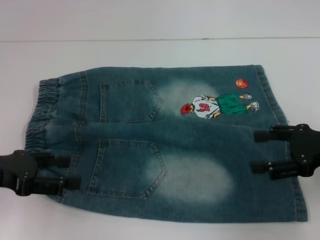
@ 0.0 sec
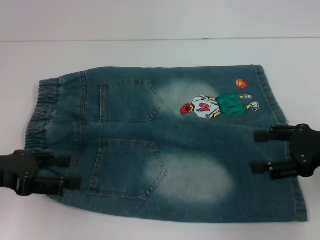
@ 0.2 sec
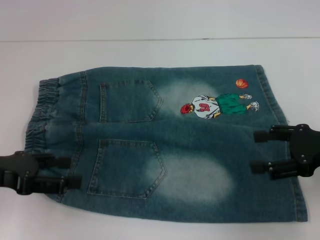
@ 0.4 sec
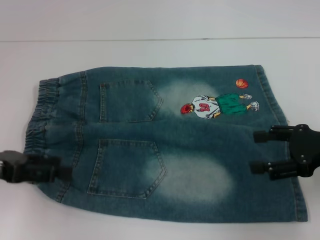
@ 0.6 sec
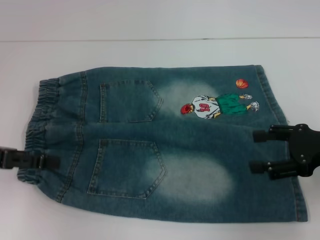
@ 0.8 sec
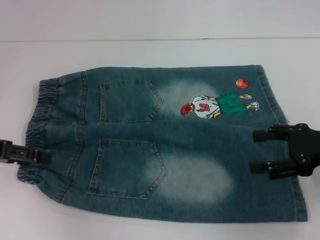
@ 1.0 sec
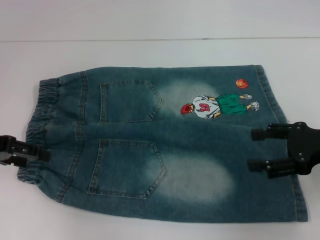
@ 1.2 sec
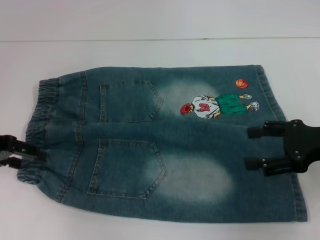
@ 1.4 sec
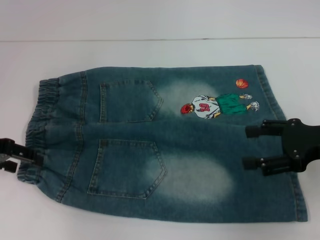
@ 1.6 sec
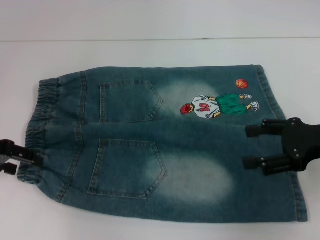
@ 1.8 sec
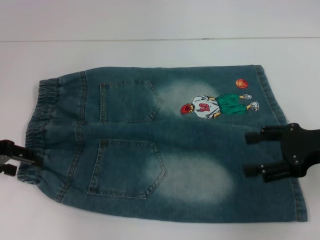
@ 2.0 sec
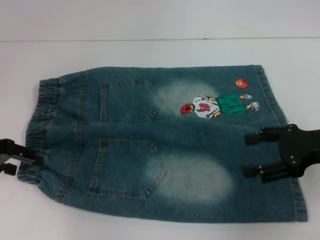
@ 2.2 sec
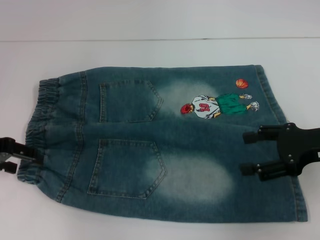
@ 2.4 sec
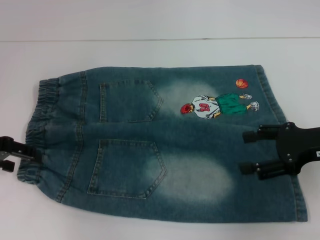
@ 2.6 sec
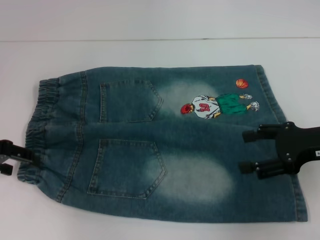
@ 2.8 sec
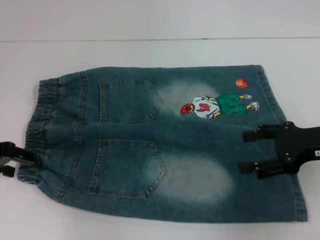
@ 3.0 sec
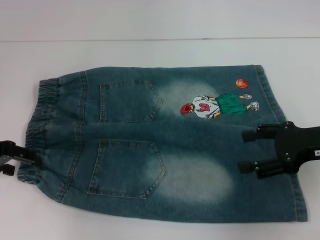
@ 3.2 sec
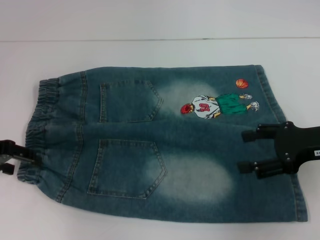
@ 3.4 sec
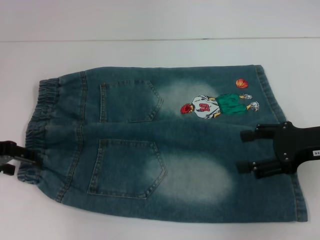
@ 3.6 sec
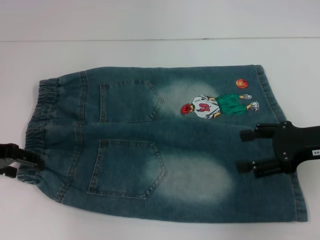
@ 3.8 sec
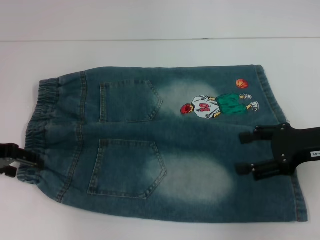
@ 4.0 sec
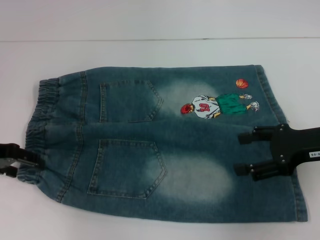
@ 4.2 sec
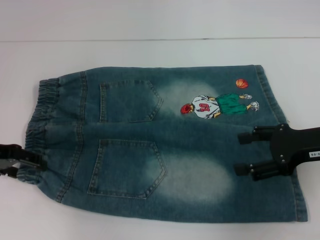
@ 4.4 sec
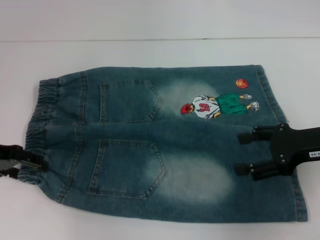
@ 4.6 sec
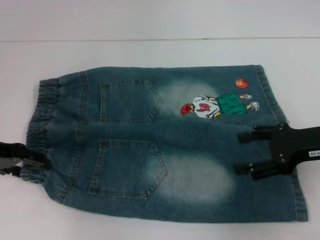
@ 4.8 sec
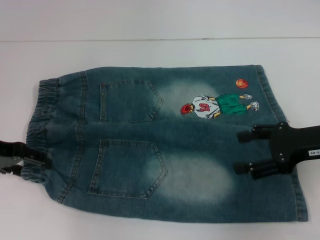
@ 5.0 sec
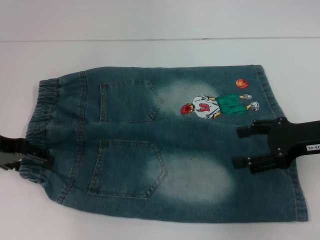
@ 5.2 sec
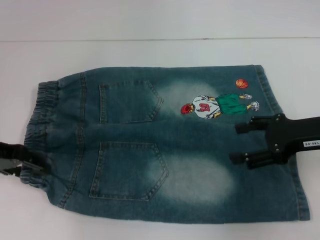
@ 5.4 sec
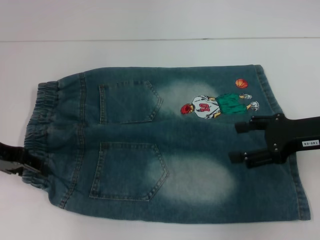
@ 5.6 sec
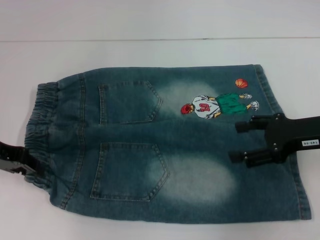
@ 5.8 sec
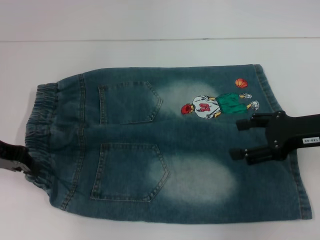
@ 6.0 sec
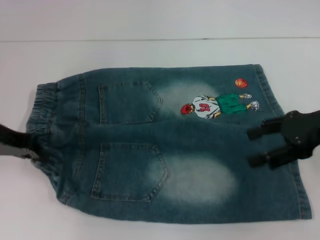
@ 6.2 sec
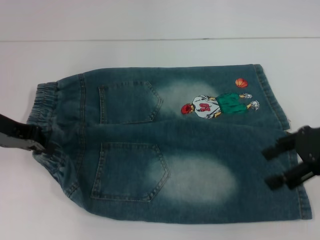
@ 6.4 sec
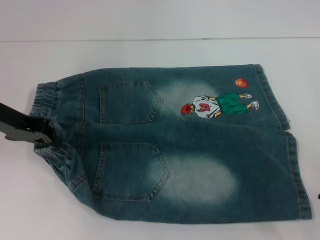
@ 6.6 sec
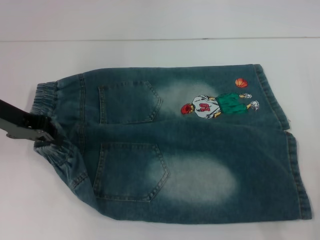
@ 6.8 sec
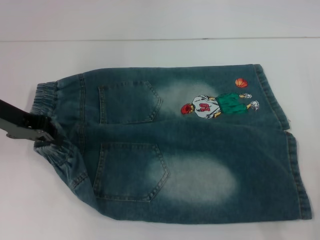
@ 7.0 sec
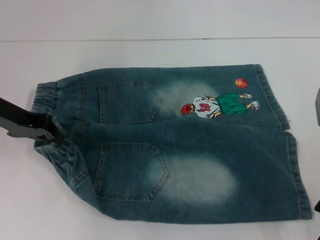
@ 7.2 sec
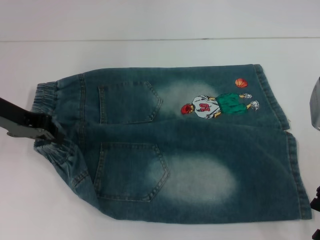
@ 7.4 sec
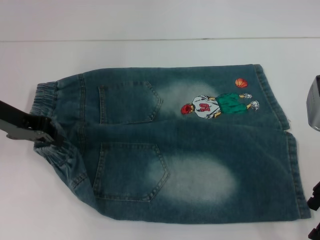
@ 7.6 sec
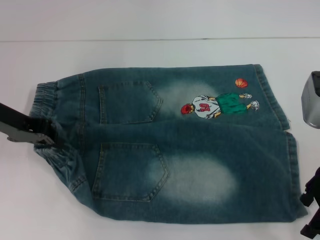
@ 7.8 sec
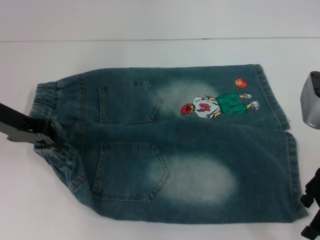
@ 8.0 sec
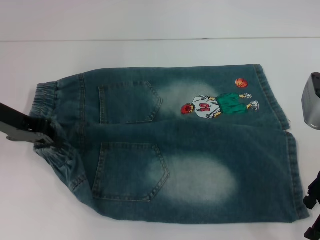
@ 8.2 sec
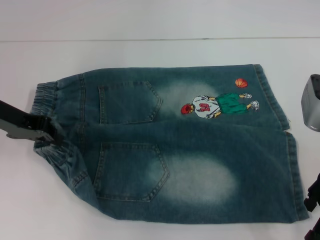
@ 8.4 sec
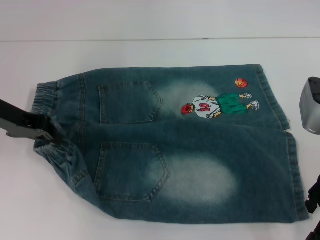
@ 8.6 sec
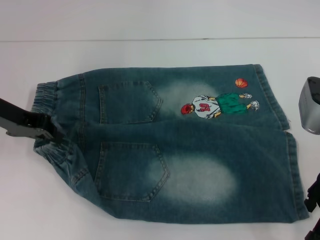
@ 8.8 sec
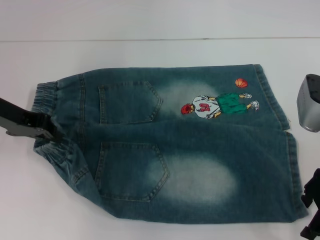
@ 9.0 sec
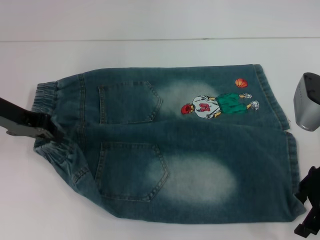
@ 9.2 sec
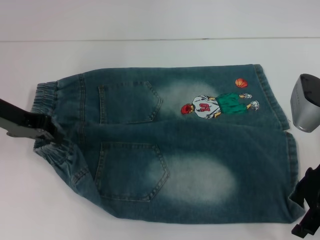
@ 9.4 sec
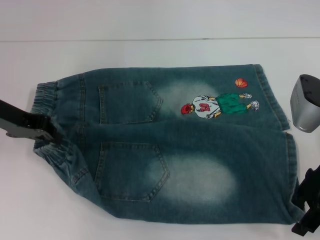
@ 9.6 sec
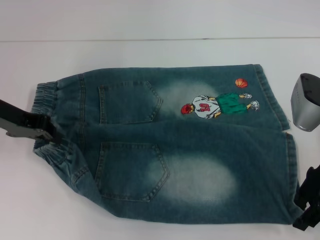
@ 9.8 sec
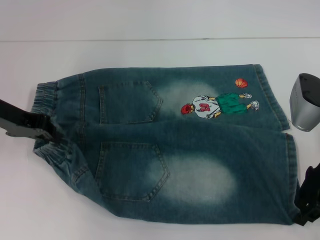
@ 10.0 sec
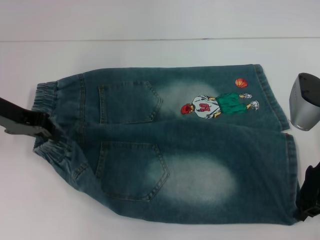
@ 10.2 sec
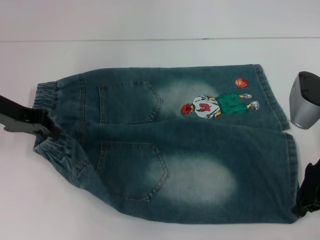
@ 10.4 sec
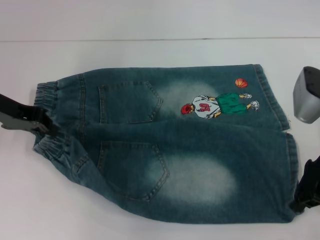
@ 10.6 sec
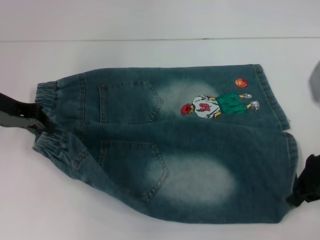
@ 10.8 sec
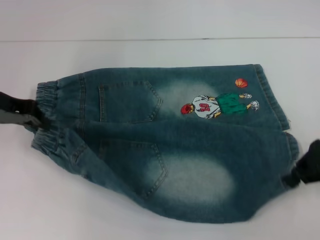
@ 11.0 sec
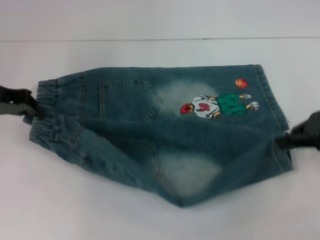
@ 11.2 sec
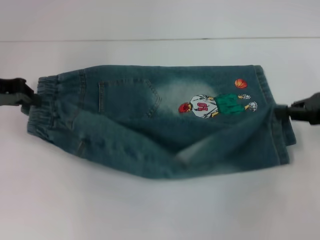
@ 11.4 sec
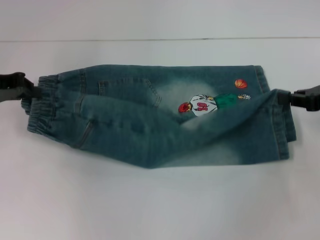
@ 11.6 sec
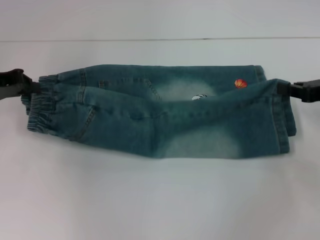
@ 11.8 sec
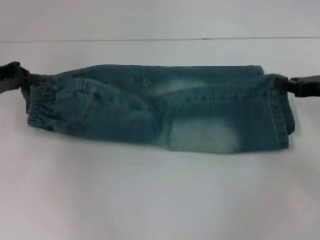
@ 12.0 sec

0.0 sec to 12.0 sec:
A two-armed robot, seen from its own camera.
Step, 0.0 sec to 5.2 sec: Hold the lower left waistband with your left hand.
Step, 5.4 sec to 10.0 sec: Grab the lower right pant leg with your right hand.
0.0 sec to 1.6 sec: The left gripper travels forward by roughly 5 cm.
1.6 sec to 3.0 sec: The grippers move only a little.
3.0 sec to 4.4 sec: Both grippers stay put.
4.4 sec to 6.0 sec: The left gripper closes up.
7.6 sec to 9.0 sec: Both grippers stay about where they are.
9.0 sec to 10.4 sec: The right gripper closes up.
10.4 sec to 12.0 sec: The right gripper is displaced to the right by roughly 10 cm.

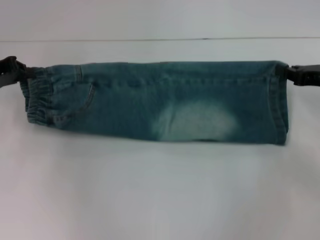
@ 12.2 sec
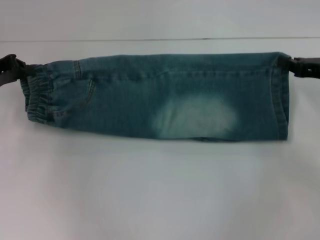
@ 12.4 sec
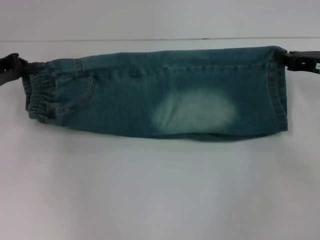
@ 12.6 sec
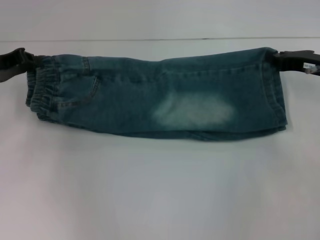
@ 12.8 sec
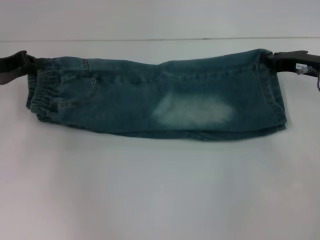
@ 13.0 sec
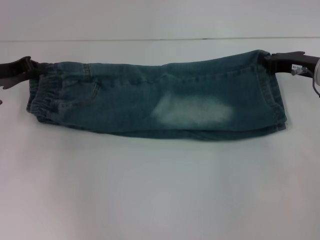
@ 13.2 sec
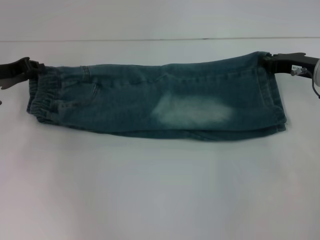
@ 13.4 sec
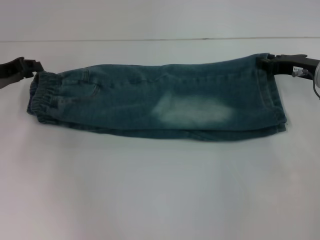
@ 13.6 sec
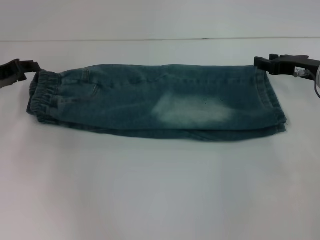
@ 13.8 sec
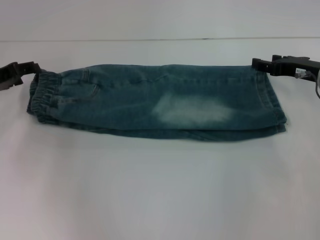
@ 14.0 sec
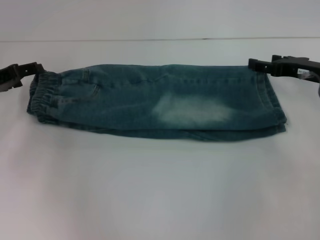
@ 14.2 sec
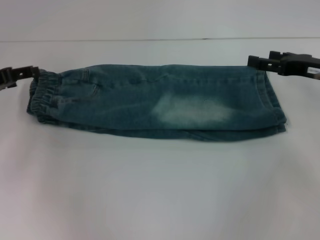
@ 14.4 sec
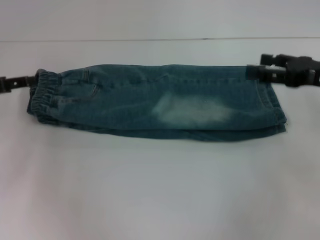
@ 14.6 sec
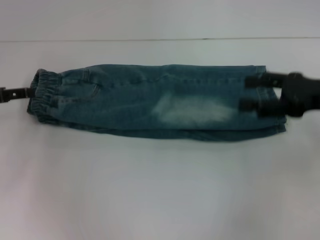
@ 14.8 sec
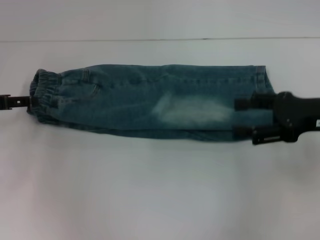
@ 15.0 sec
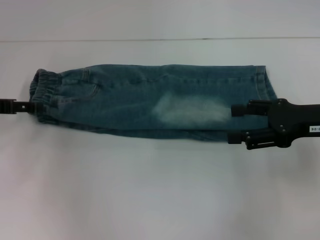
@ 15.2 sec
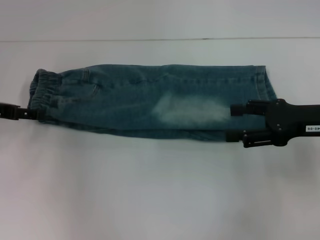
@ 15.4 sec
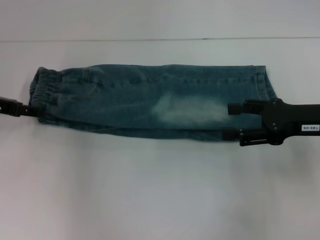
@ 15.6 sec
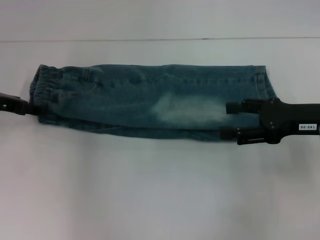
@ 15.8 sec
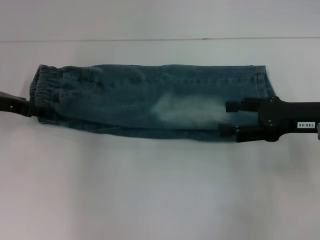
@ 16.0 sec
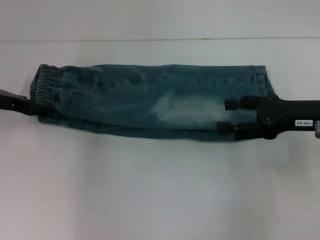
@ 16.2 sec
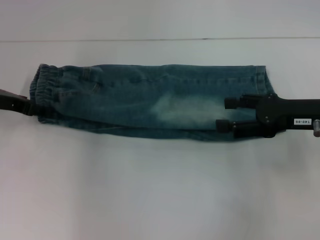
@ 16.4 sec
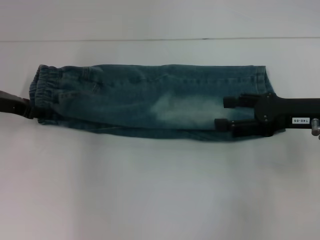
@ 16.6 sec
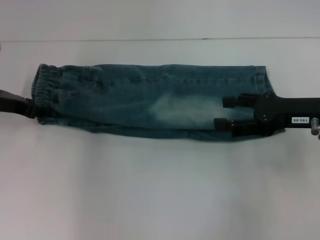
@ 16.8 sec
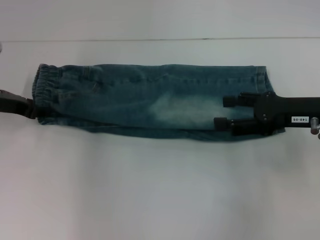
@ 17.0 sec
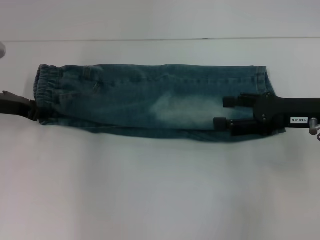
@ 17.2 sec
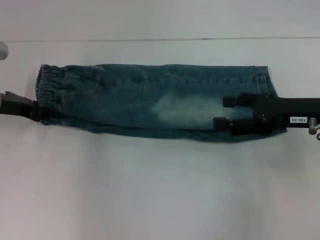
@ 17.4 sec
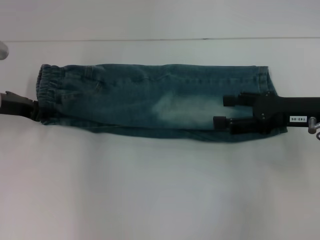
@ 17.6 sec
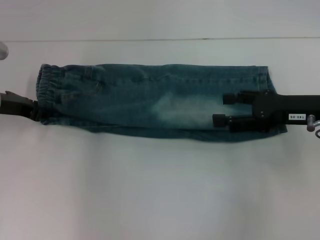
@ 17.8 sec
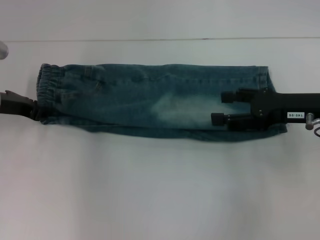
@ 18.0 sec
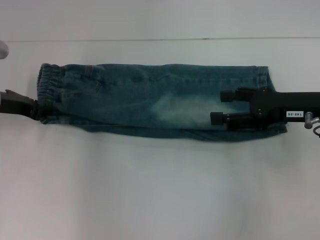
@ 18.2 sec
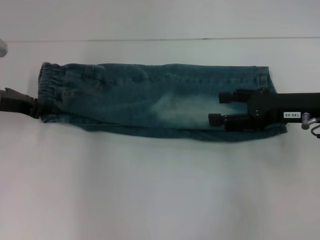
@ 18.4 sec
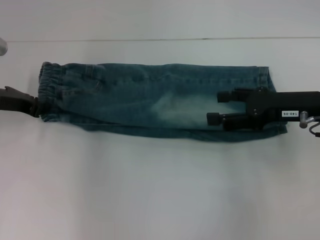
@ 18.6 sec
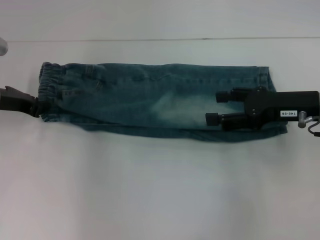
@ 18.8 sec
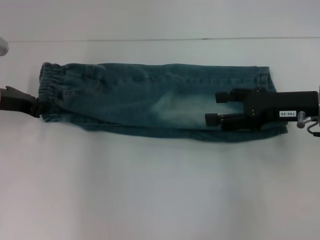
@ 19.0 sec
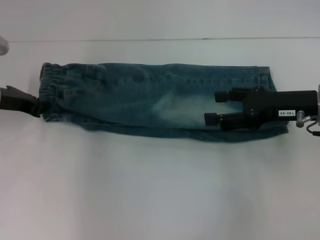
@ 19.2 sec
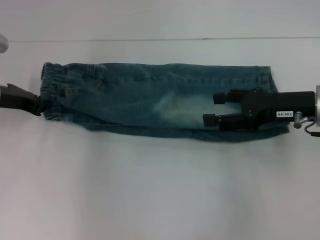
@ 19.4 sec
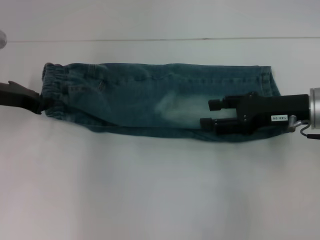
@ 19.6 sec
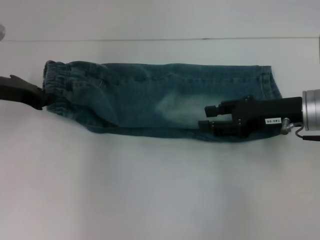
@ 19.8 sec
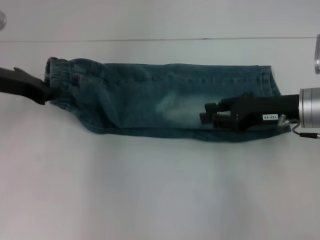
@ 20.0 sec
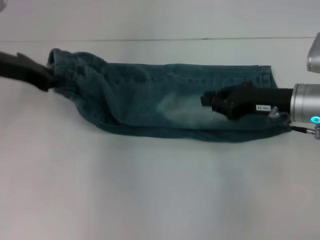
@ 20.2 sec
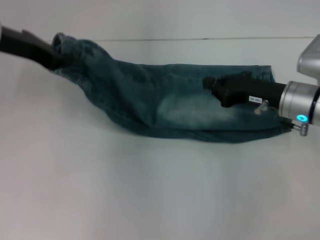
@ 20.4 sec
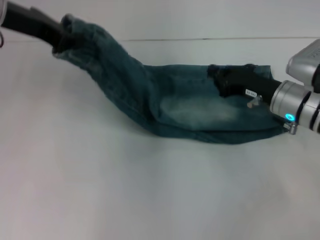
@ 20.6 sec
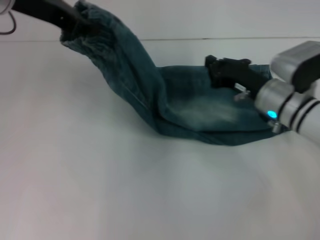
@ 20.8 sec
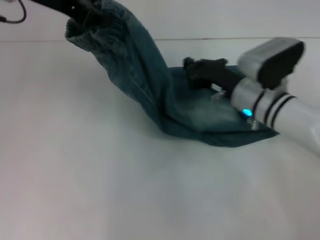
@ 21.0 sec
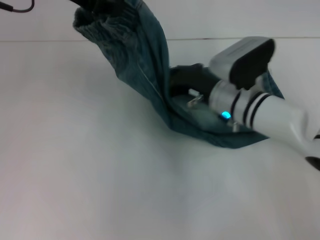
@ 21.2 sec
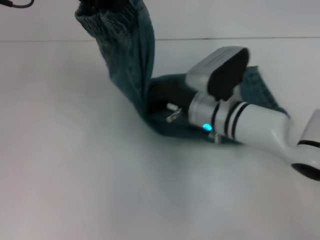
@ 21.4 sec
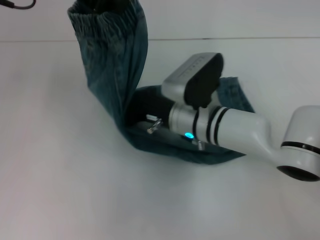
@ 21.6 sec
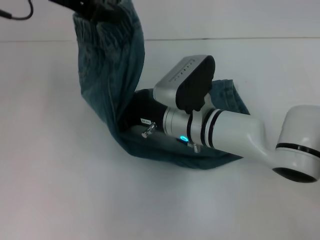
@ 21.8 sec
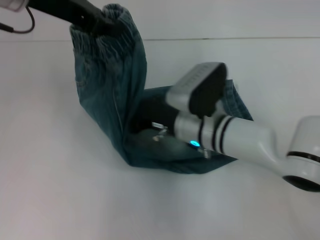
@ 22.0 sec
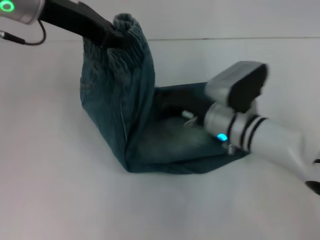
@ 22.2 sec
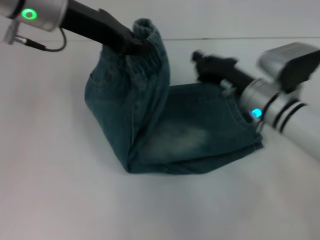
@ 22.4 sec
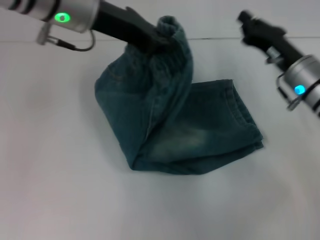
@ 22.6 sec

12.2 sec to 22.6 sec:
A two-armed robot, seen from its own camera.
Step, 14.2 sec to 17.6 sec: Hold the waistband with your left hand.
Step, 17.8 sec to 22.0 sec: Press the middle of the pants with your right hand.
12.2 sec to 13.6 sec: The right gripper shifts by about 5 cm.
13.6 sec to 15.2 sec: The right gripper travels backward by about 10 cm, and opens its fingers, while the left gripper opens its fingers.
15.2 sec to 16.6 sec: The left gripper ends up some 5 cm from where it was.
16.6 sec to 18.2 sec: The left gripper closes up.
18.2 sec to 19.6 sec: The grippers move only a little.
19.6 sec to 21.2 sec: The right gripper goes approximately 15 cm to the left and downward, and closes, while the left gripper goes some 20 cm upward and to the right.
21.2 sec to 22.6 sec: The left gripper shifts some 10 cm to the right and downward. Meanwhile the right gripper goes some 10 cm to the right.
